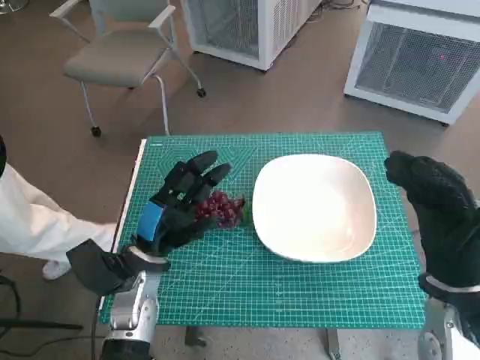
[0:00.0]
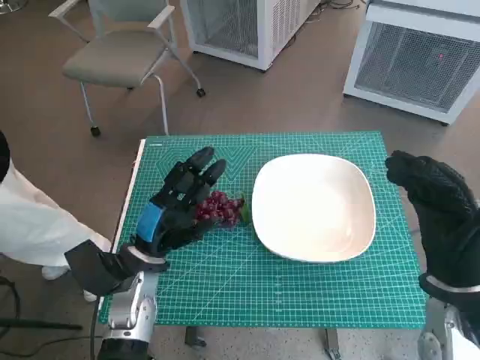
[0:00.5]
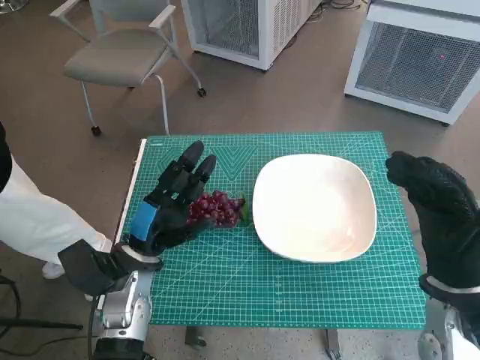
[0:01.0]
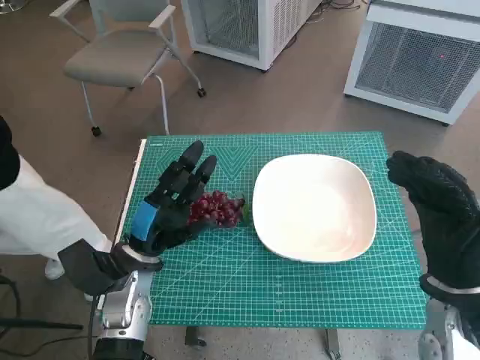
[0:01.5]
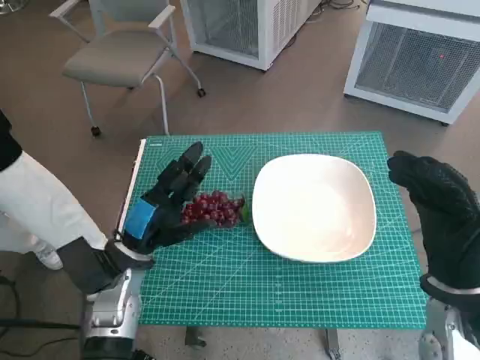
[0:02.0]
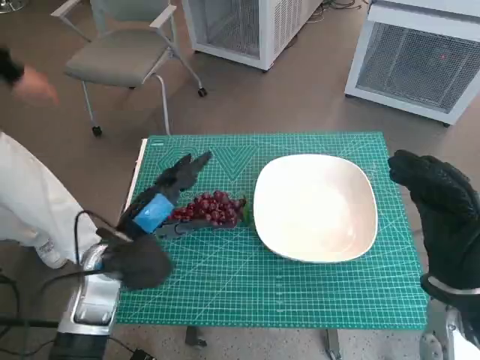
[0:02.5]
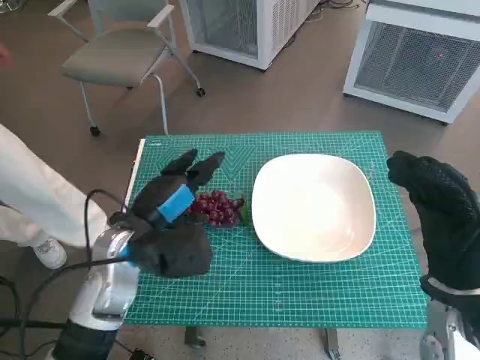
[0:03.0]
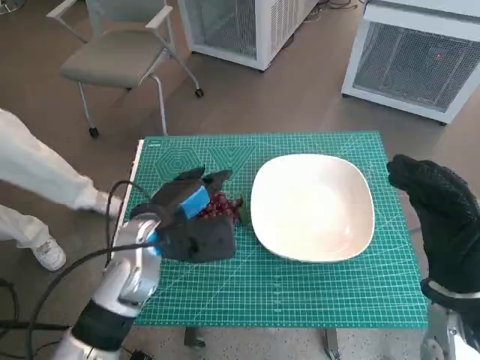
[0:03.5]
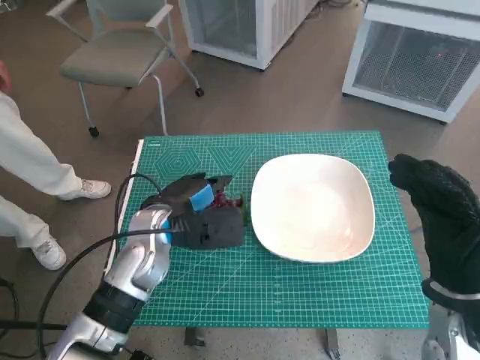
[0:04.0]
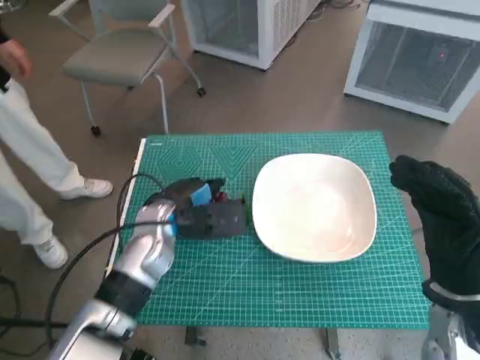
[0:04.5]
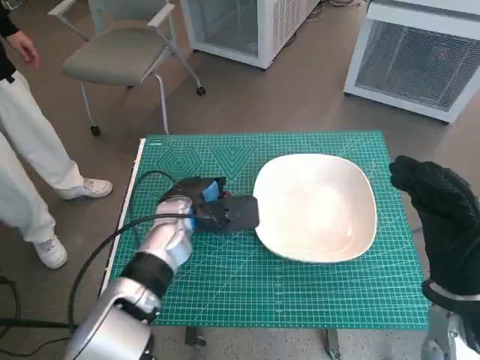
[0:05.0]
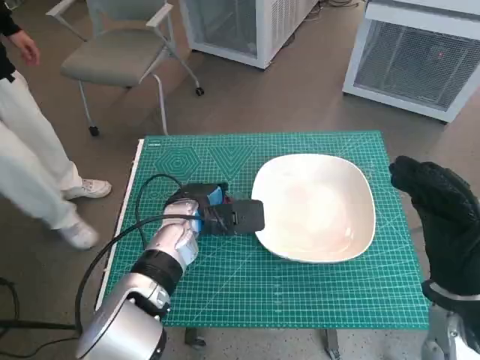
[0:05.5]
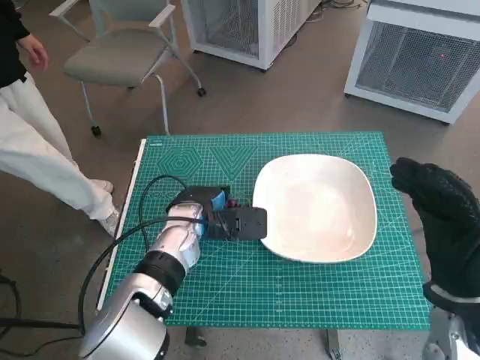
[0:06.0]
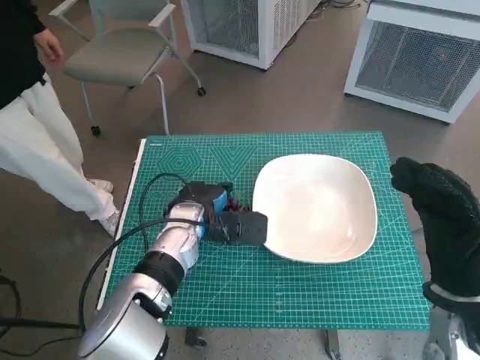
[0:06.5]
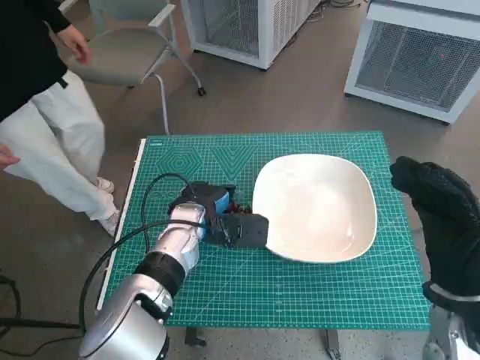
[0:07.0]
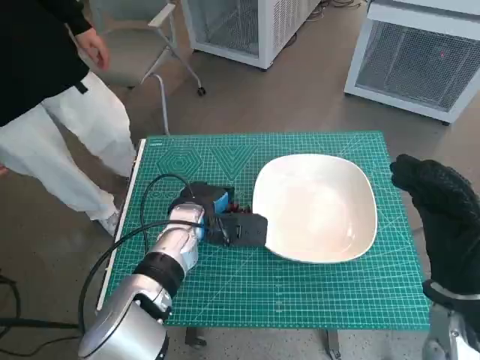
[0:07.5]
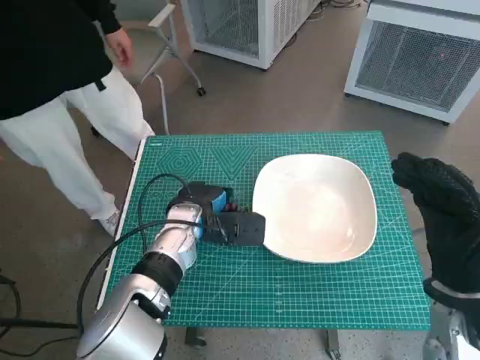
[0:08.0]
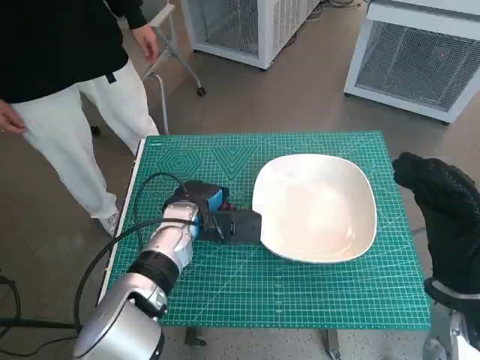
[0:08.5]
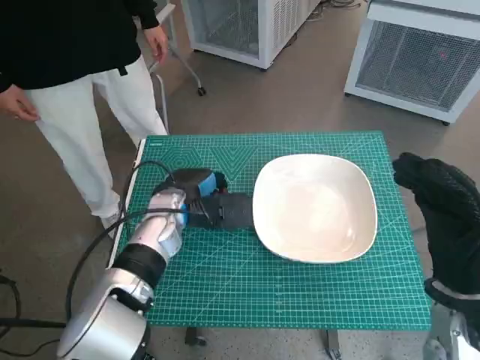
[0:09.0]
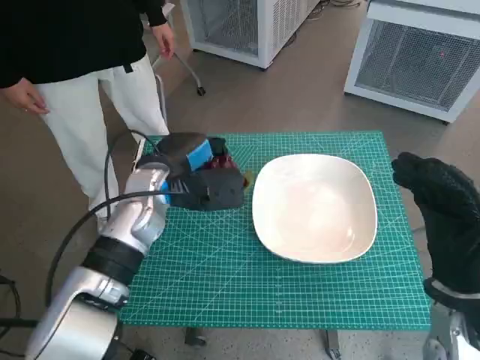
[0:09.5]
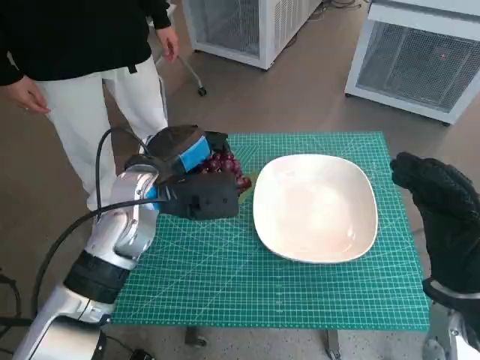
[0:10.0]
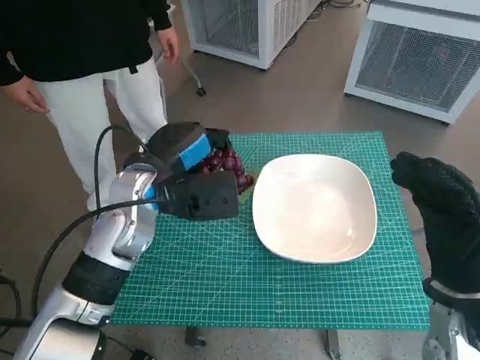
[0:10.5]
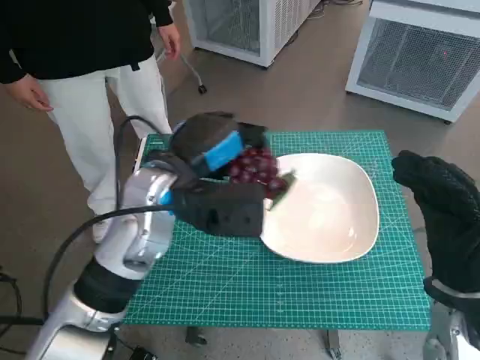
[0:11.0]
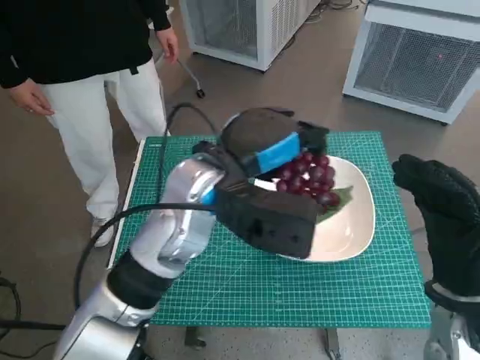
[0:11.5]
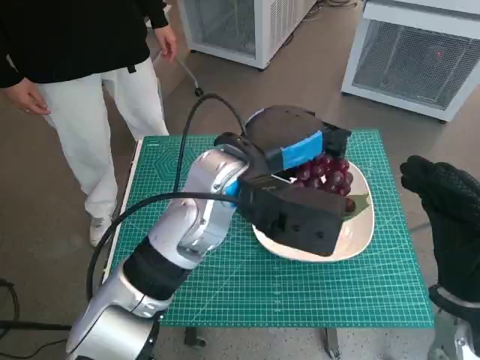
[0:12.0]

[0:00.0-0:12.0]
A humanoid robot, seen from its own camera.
Task of the whole recording: Pick up the grapes and put them on the plate.
Step, 0:00.0 to 0:06.5: Grasp the grapes with left hand.
0:02.0 to 0:04.0: The left hand heads to the right, covering approximately 5 cm.
0:04.0 to 0:06.0: The left hand moves roughly 5 cm.
0:06.0 to 0:08.0: There are only small adjustments of the hands.
0:08.0 to 0:10.0: The left hand moves upward, some 10 cm.
0:10.0 to 0:12.0: The left hand goes some 10 cm to the right and upward.

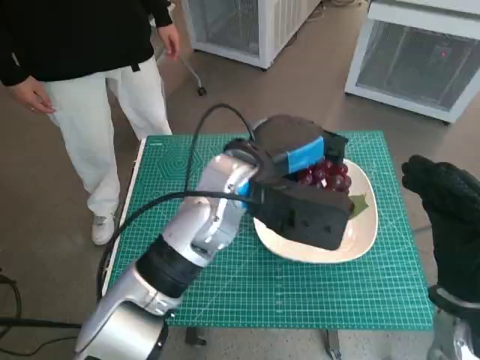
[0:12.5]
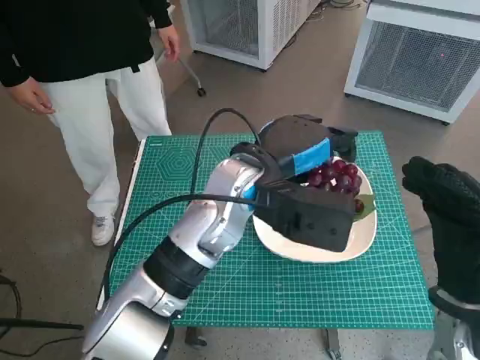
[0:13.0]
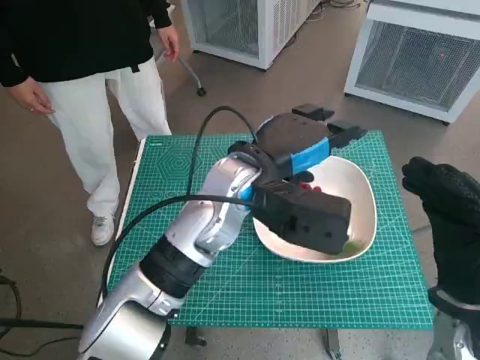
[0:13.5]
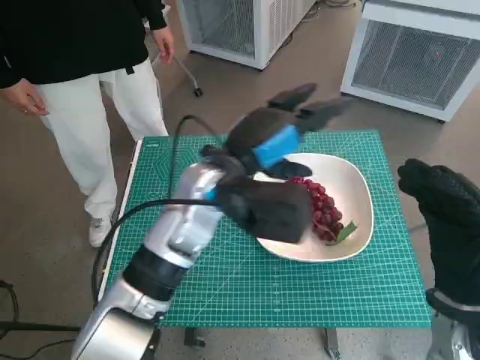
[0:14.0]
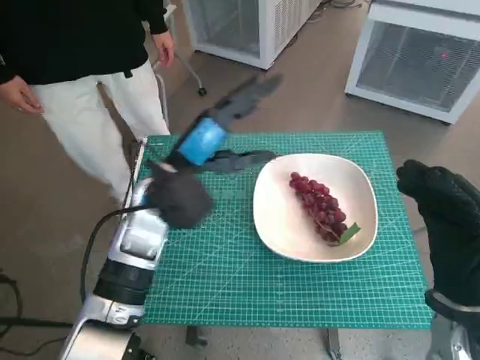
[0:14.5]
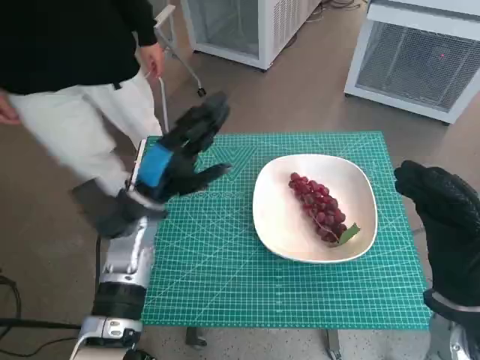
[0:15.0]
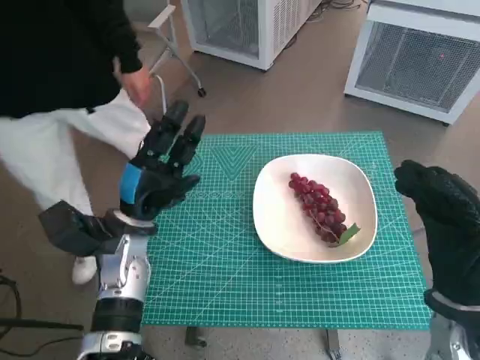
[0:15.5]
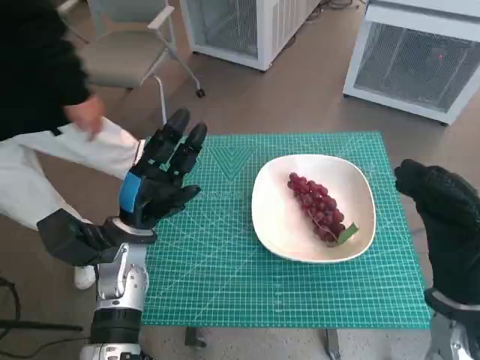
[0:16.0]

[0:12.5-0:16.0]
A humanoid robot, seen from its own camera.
Task of the whole recording: Pick up the grapes and put them on the plate.
0:12.5 to 0:14.5: The left hand shifts about 10 cm to the left.
0:14.5 to 0:16.0: The left hand is displaced downward and to the left by some 10 cm.

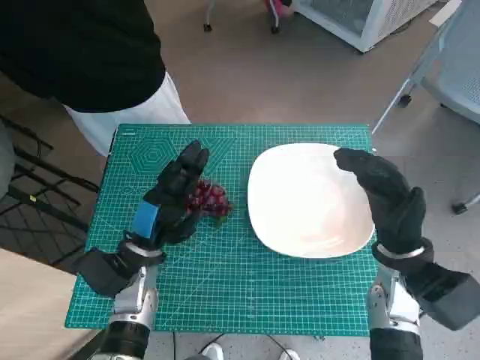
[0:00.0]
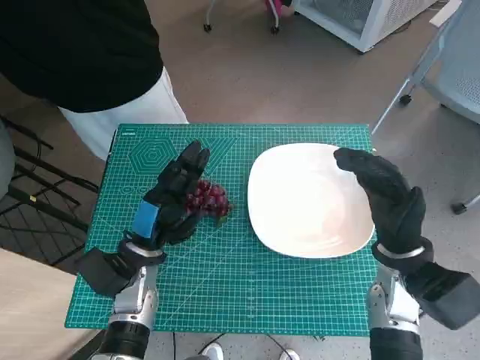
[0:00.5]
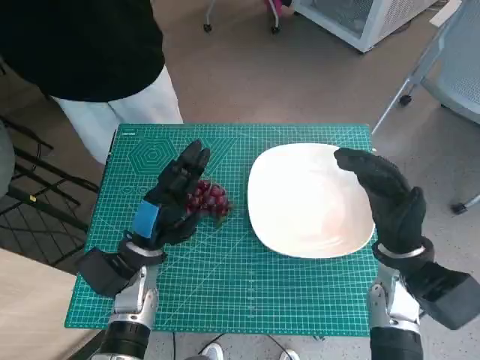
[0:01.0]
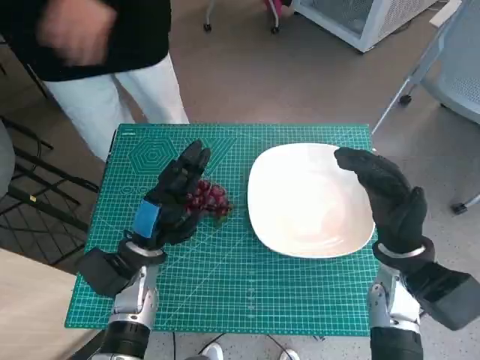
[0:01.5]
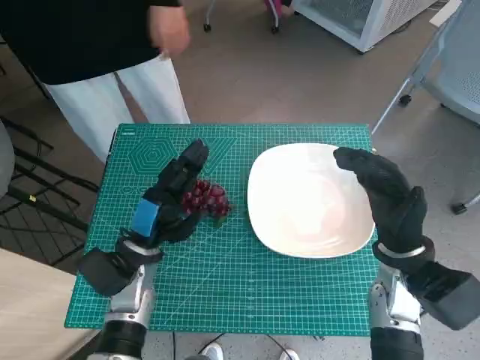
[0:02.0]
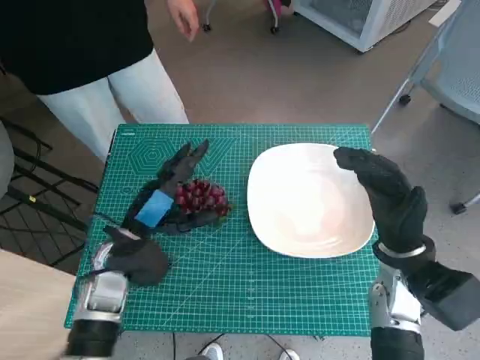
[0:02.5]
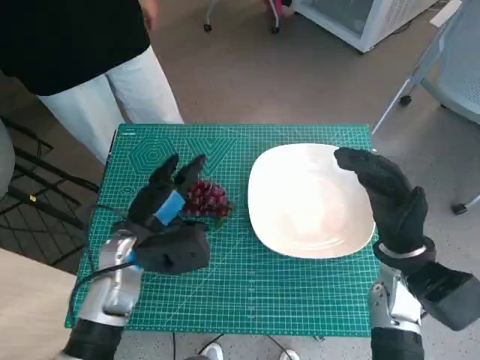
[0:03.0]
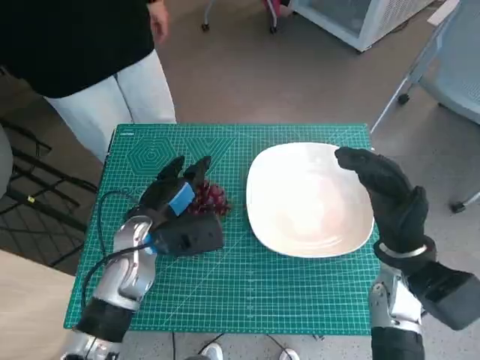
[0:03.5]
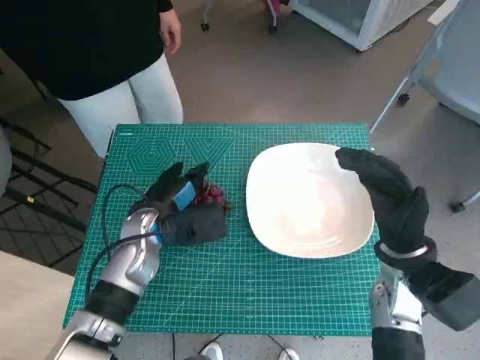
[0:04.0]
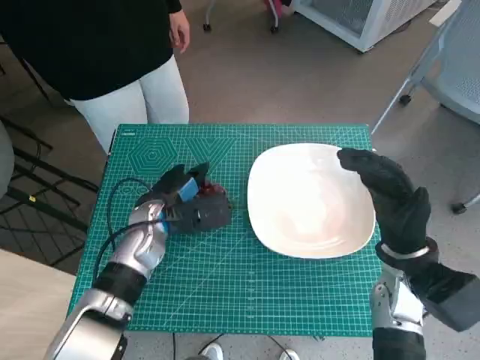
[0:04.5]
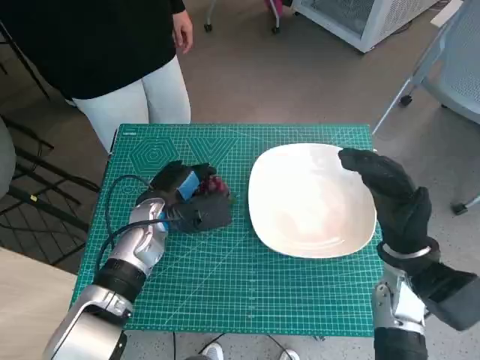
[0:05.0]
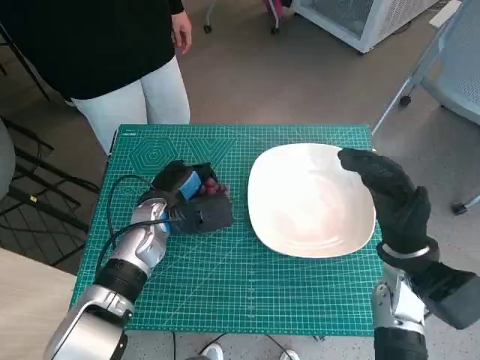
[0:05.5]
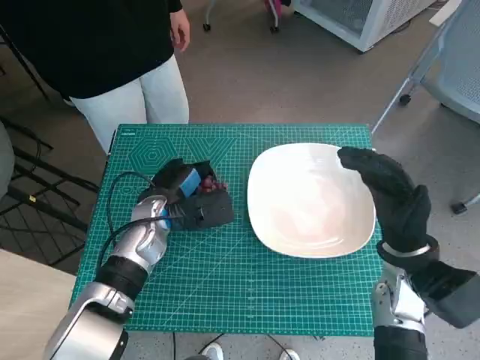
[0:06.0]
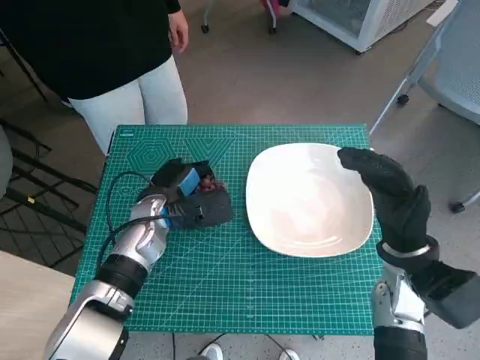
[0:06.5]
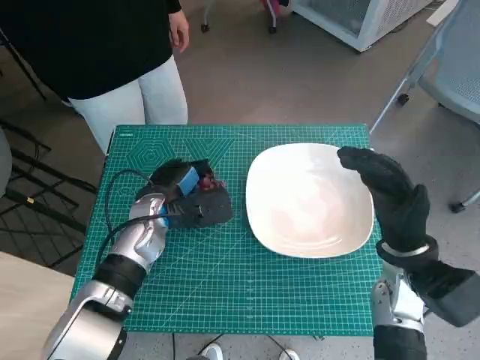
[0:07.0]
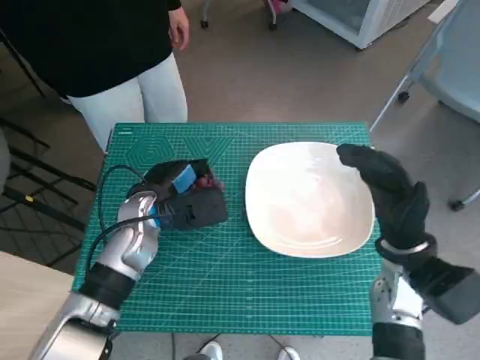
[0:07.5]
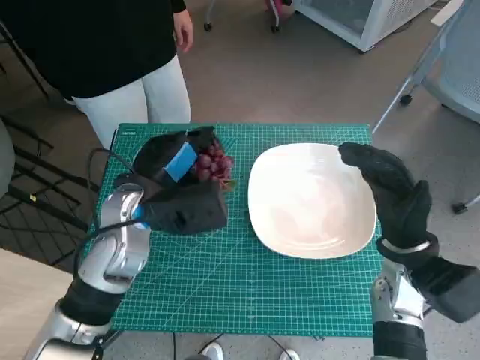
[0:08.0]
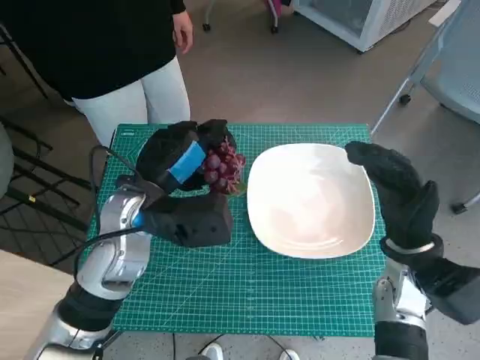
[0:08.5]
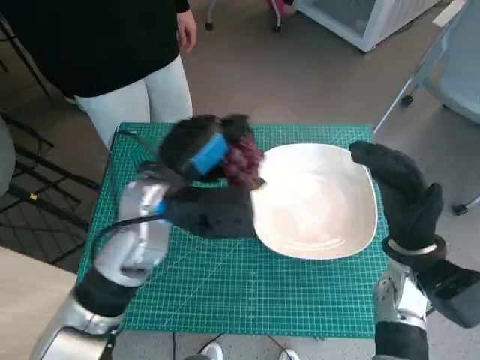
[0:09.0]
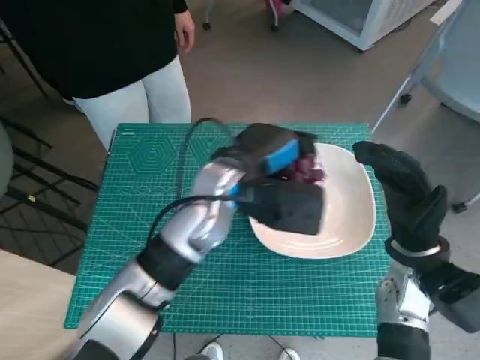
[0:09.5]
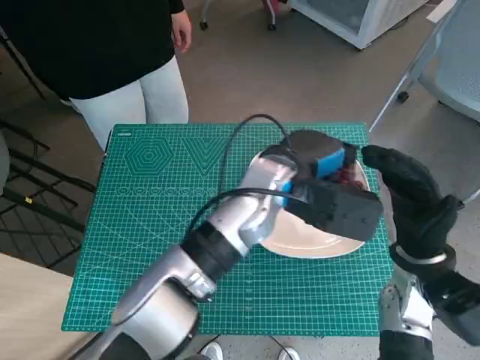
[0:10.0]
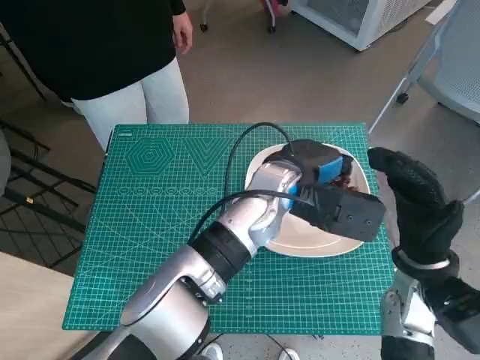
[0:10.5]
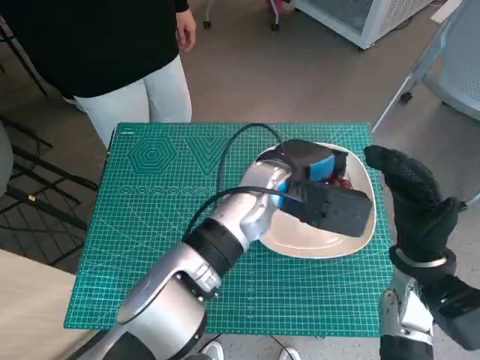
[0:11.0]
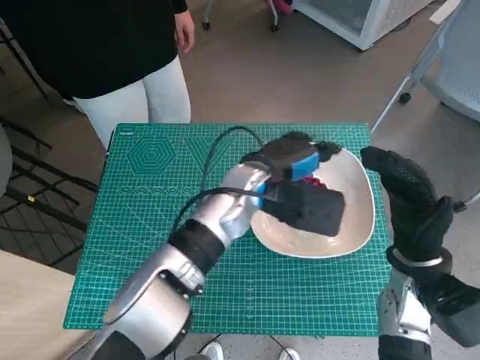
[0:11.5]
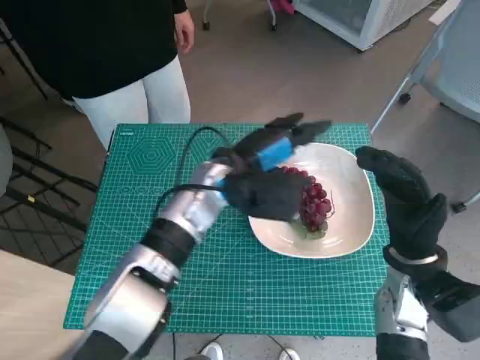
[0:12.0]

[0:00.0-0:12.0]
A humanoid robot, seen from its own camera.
Task of the whole recording: Pick up the grapes and put them on the plate.
Step, 0:00.0 to 0:05.5: Grasp the grapes with left hand.
Step, 0:06.0 to 0:11.0: Place the grapes in the plate with left hand.
0:02.0 to 0:04.0: The left hand changes place by about 5 cm.
0:04.0 to 0:06.0: There are only small adjustments of the hands.
0:06.0 to 0:08.0: The left hand goes about 10 cm upward.
0:08.0 to 0:10.0: The left hand moves to the right, some 15 cm.
0:10.0 to 0:12.0: The left hand is displaced to the left by roughly 5 cm.
